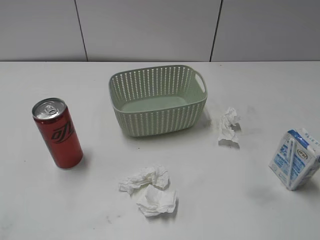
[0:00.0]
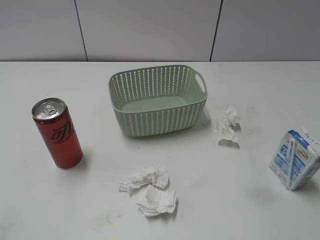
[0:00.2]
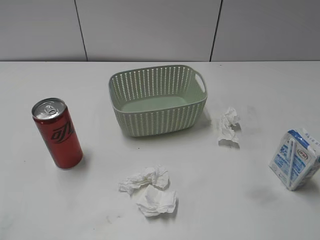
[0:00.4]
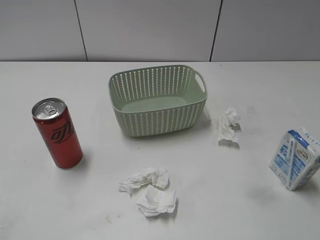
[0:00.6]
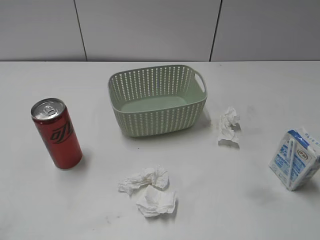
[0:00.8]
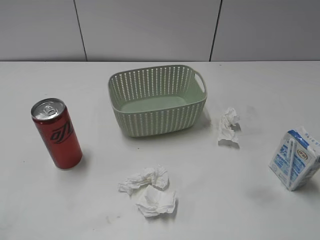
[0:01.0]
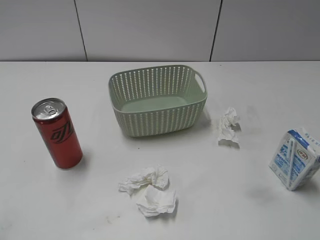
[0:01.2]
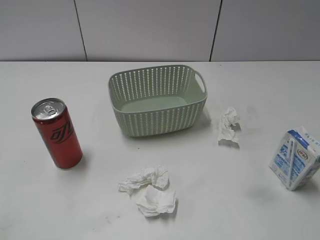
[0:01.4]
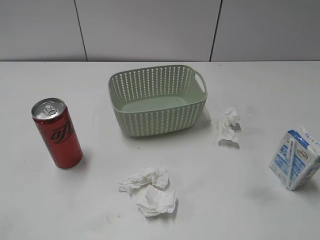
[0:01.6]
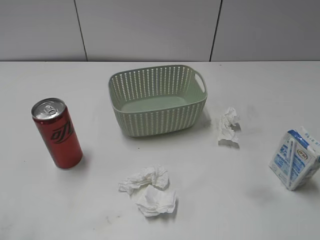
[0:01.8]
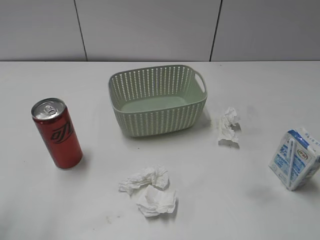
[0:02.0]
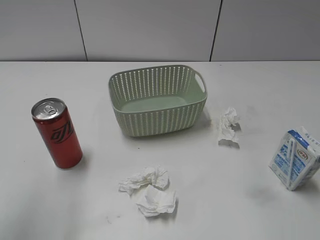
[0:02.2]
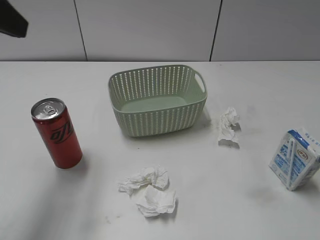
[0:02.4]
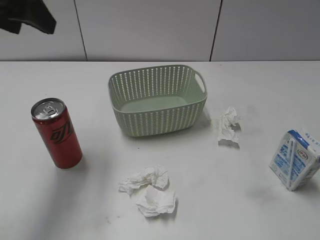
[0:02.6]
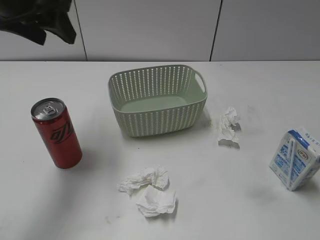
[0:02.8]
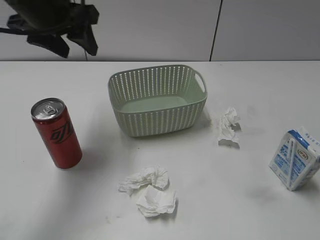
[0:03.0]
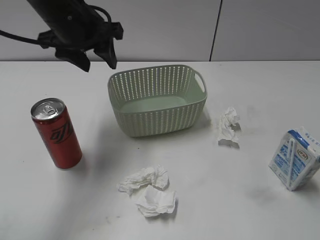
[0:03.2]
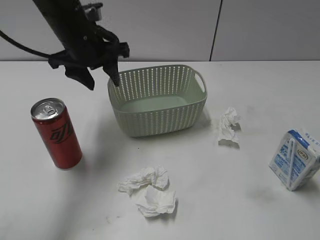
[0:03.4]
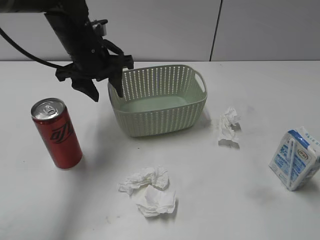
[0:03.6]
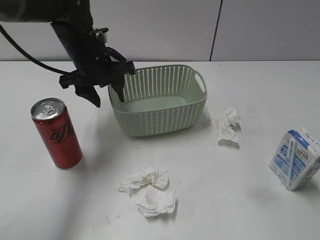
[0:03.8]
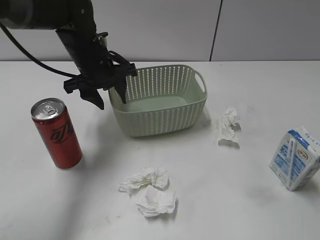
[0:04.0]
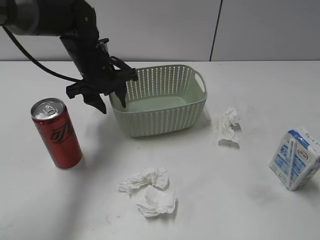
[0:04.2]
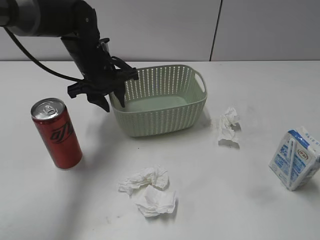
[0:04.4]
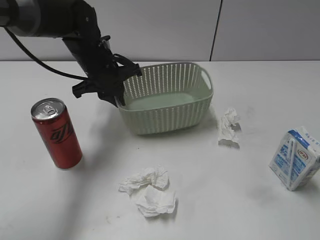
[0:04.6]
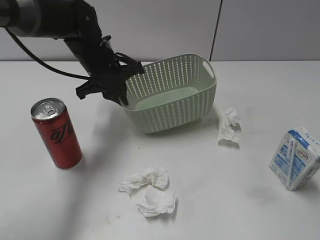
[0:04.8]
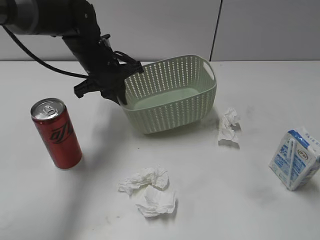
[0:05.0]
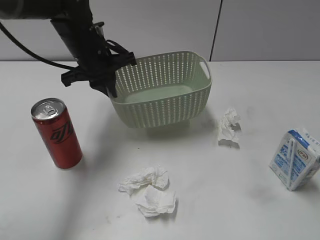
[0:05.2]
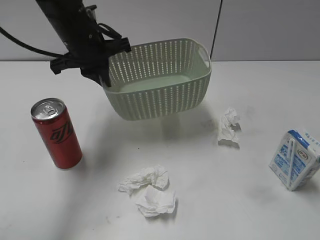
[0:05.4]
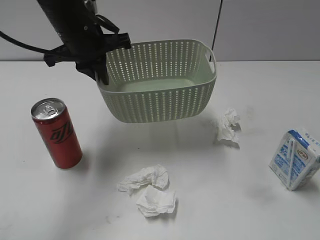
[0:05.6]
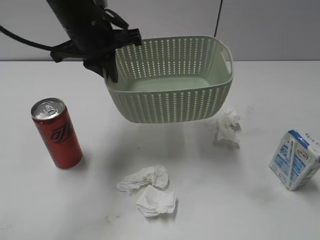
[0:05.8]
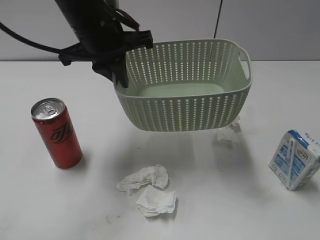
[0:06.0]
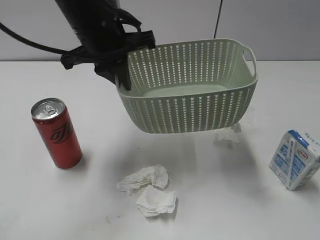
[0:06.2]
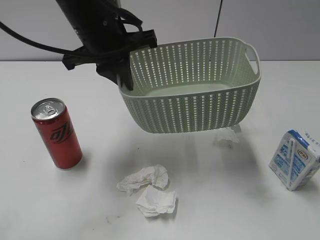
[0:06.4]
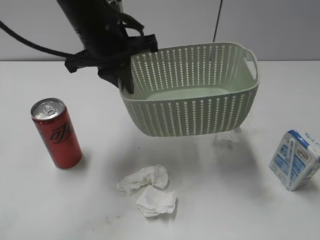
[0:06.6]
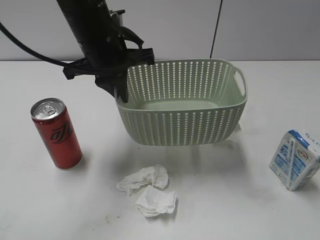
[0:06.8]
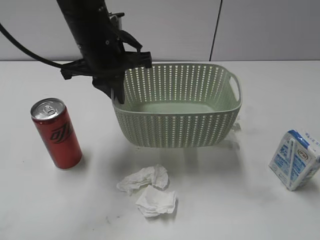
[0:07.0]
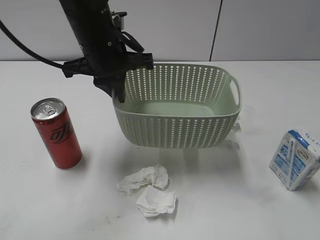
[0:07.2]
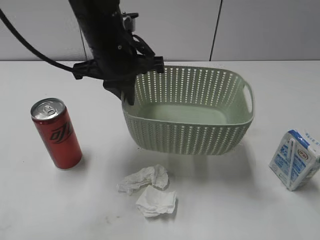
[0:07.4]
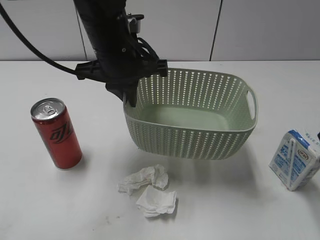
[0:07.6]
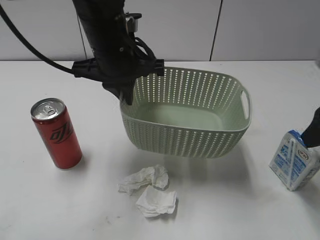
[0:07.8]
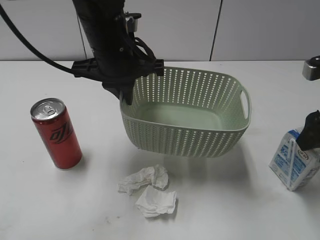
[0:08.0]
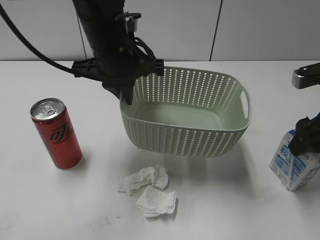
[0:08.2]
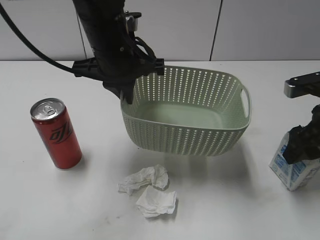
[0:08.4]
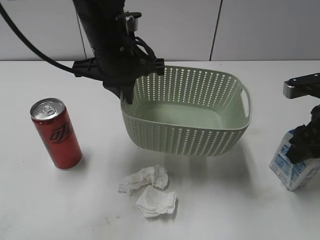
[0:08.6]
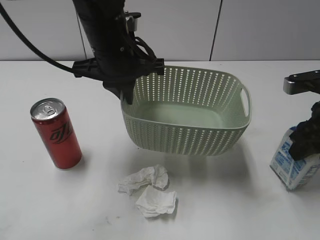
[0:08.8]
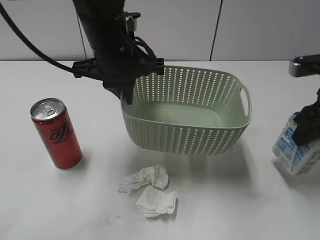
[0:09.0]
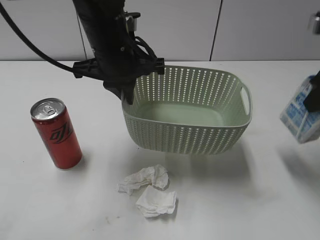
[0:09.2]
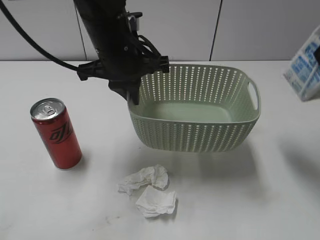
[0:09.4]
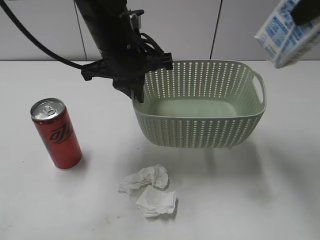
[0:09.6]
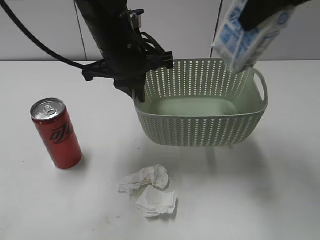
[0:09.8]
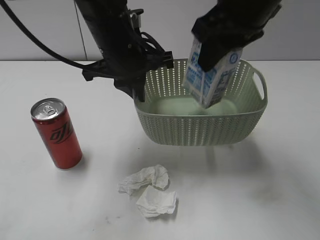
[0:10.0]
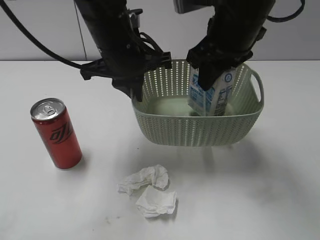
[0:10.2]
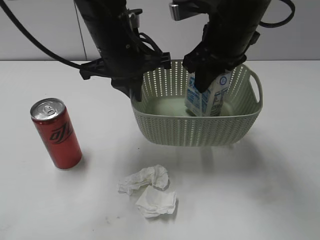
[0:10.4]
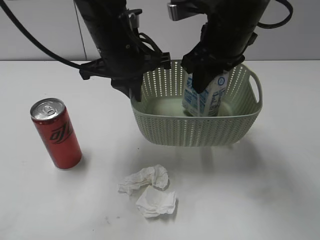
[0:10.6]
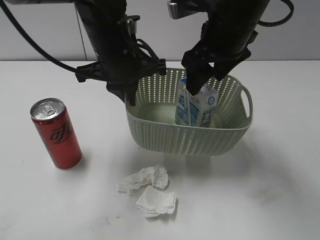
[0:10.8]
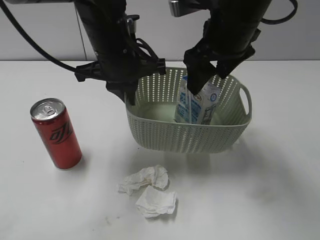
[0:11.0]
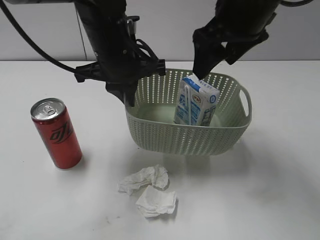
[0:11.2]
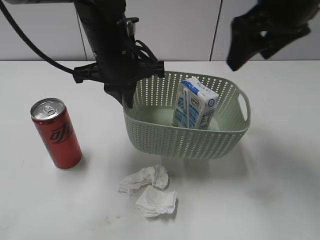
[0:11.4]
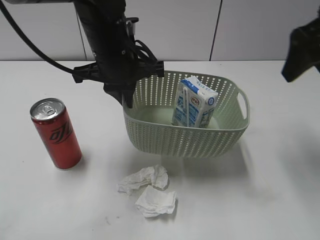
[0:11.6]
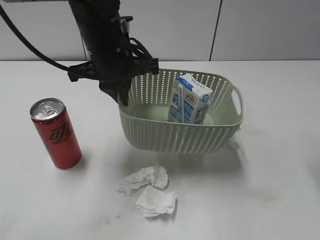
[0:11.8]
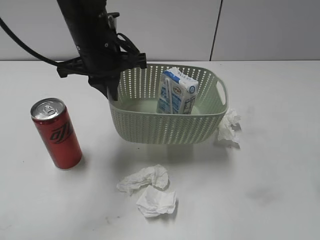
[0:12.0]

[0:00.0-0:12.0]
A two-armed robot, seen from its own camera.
Step, 0:02.4 to 0:04.6: Grasp the basket with left gripper.
Step, 0:04.8 to 0:07.4: Lift the basket with left gripper.
Step, 0:07.6 to 0:08.8: Grasp the milk with right gripper.
Step, 0:09.0 to 0:11.2: Place the milk in the basket with right gripper.
0:01.6 to 0:03.0: The left gripper is displaced forward and to the right by approximately 35 cm.
0:03.0 to 0:04.4: The left gripper travels downward by approximately 15 cm.
0:04.4 to 0:06.0: The left gripper heads upward and backward, covering roughly 15 cm, and closes.
0:06.0 to 0:07.6: The right gripper goes about 20 cm forward.
0:07.6 to 0:09.0: The right gripper heads forward and downward, covering roughly 10 cm, and closes its fingers.
0:09.0 to 0:10.4: The right gripper goes approximately 20 cm to the left, and goes upward and returns, about 20 cm each way.
0:10.4 to 0:12.0: The right gripper is displaced to the right and backward by about 25 cm, and opens up.

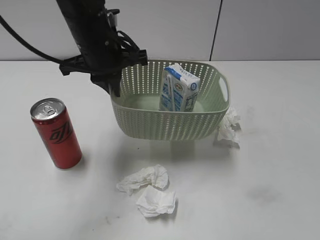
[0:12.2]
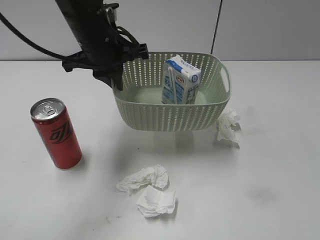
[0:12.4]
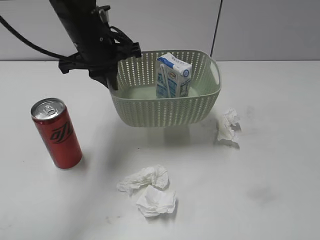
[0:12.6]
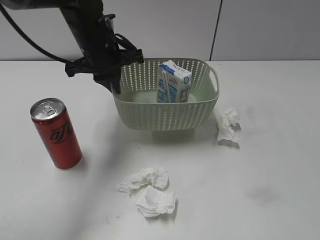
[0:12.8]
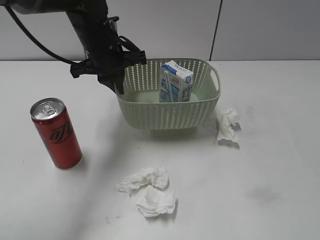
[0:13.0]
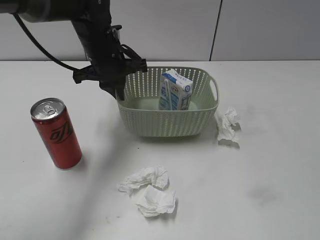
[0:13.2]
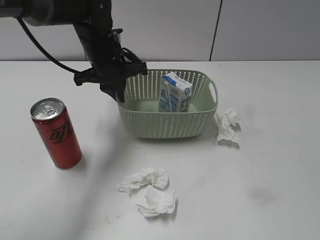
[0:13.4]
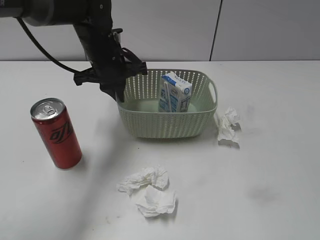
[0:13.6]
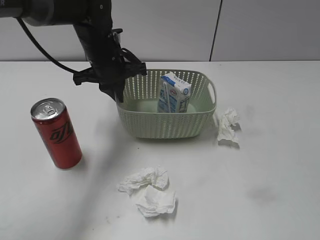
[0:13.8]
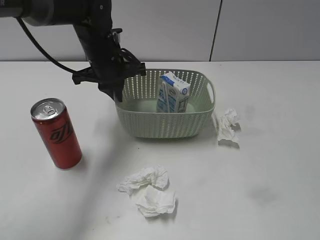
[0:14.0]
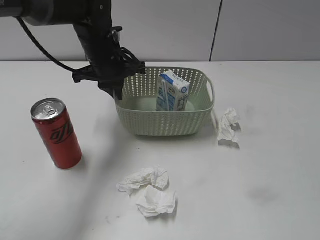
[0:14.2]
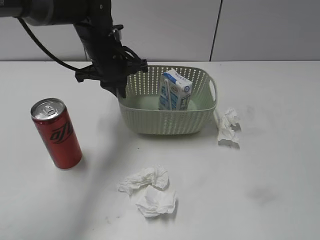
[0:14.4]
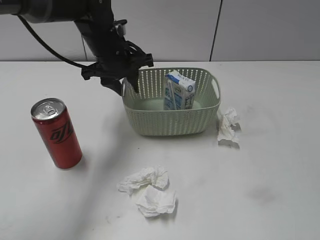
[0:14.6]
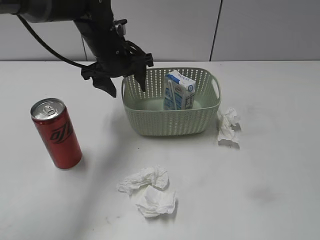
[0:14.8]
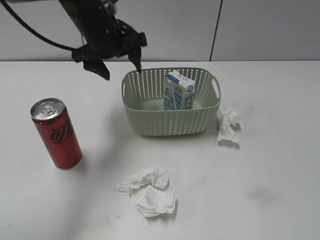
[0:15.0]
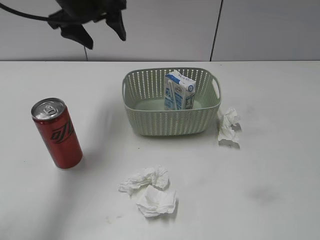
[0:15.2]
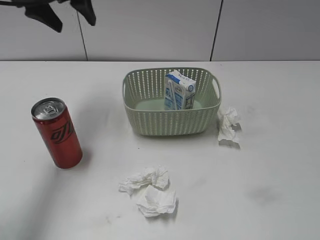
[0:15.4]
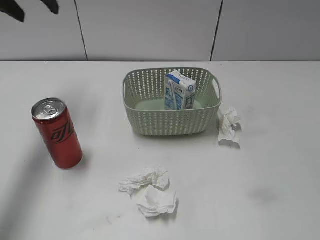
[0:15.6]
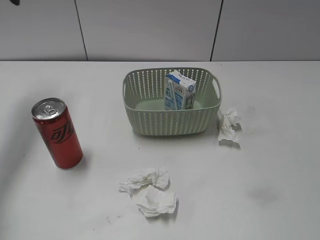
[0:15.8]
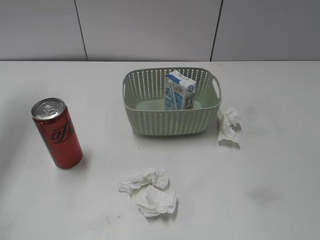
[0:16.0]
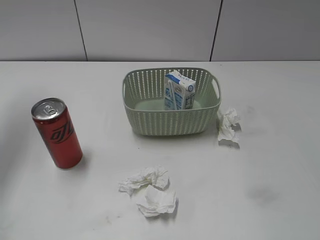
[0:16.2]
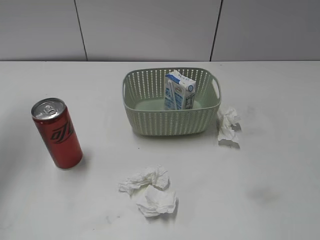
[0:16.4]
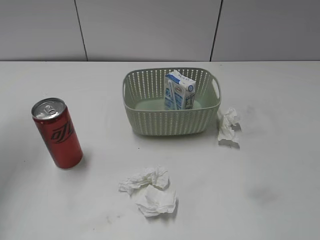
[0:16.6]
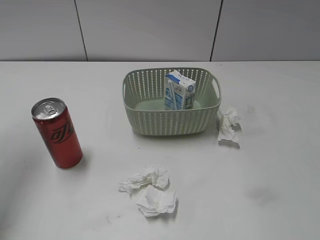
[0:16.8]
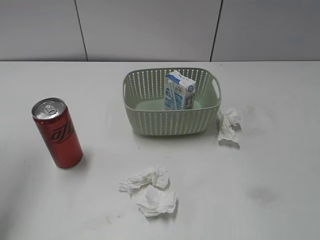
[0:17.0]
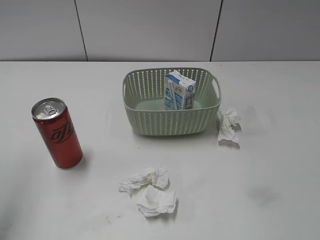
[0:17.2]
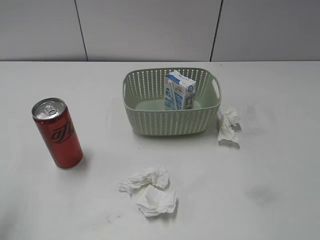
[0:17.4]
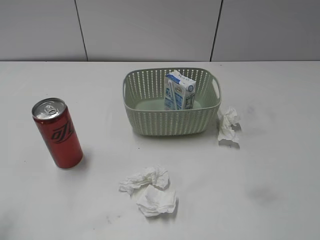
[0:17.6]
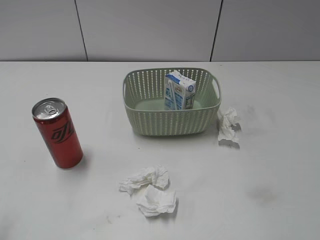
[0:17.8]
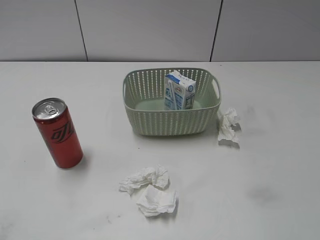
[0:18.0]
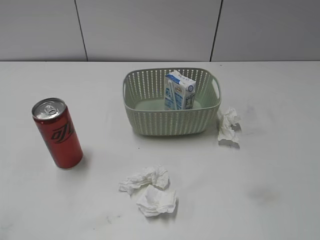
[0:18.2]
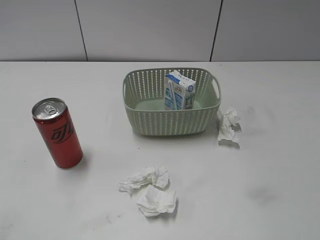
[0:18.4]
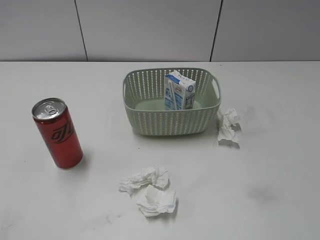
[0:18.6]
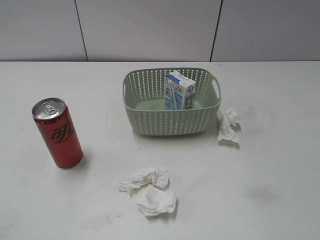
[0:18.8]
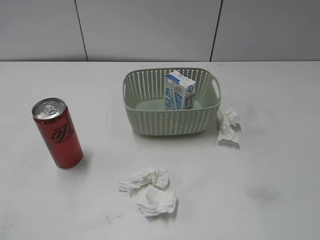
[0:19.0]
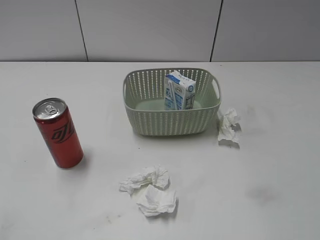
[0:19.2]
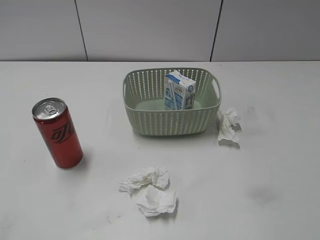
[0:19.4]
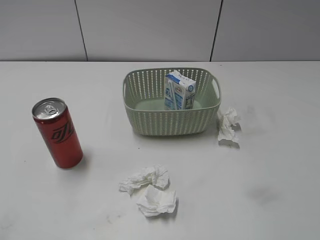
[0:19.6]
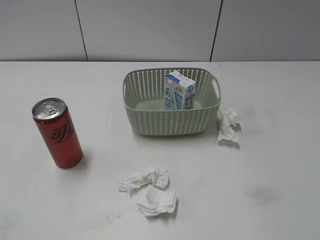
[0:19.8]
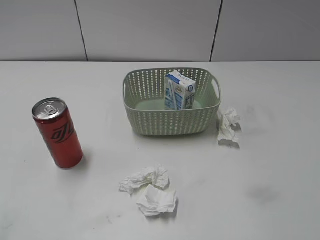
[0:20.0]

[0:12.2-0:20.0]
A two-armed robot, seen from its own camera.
Step, 0:12.2 to 0:14.8: Place the basket on the table with left gripper.
0:12.2 to 0:13.8: The right gripper goes approximately 20 cm backward, while the left gripper travels downward and forward by about 10 cm.
0:13.8 to 0:15.4: The left gripper shifts roughly 15 cm upward and to the left, and opens.
0:15.4 to 0:16.8: The left gripper heads to the left, backward and upward, covering some 20 cm.
0:16.8 to 0:18.4: The left gripper is displaced backward and downward by approximately 30 cm.
